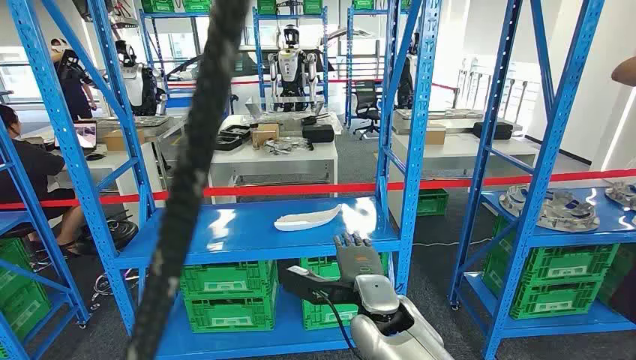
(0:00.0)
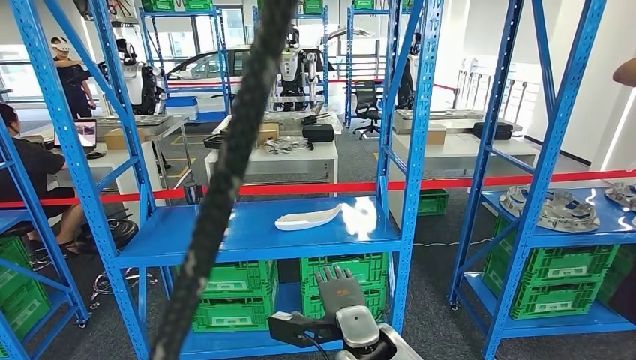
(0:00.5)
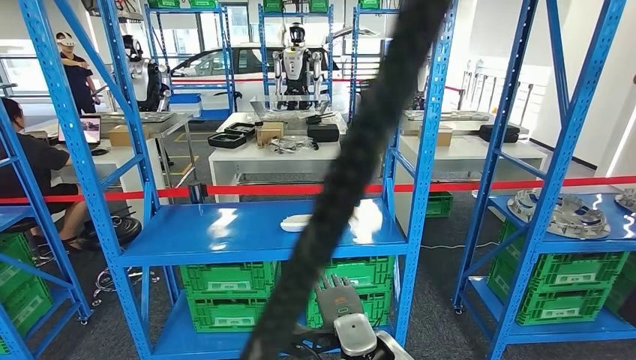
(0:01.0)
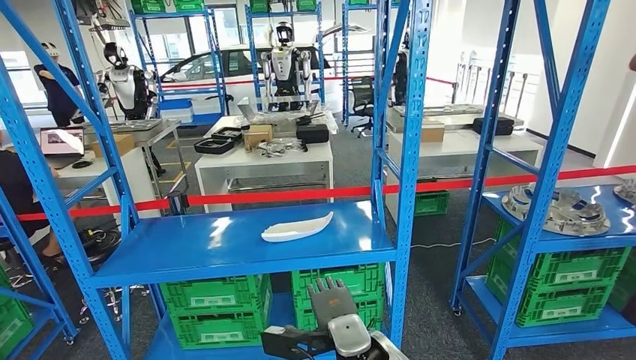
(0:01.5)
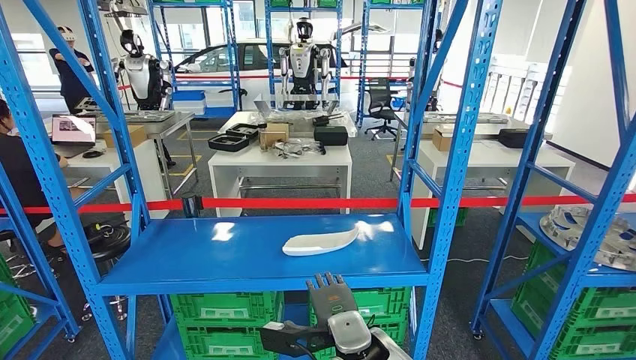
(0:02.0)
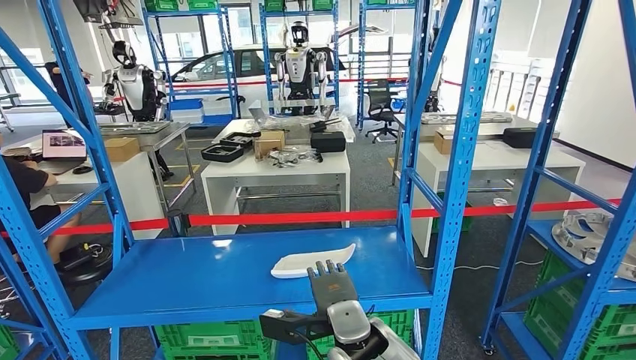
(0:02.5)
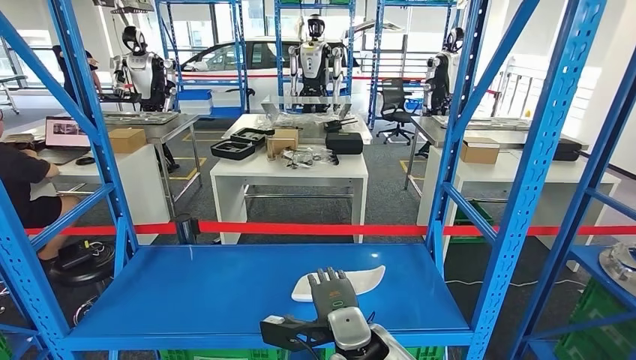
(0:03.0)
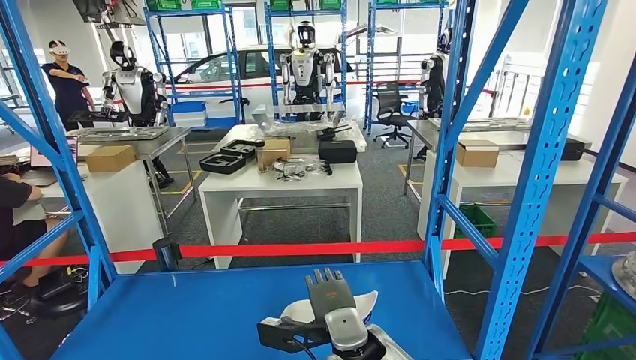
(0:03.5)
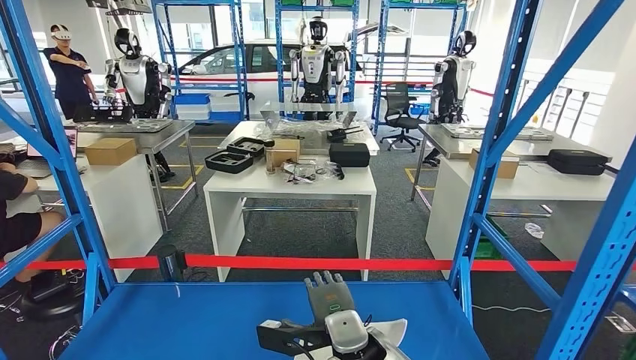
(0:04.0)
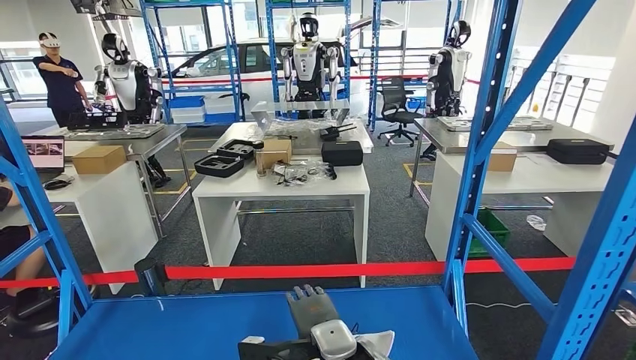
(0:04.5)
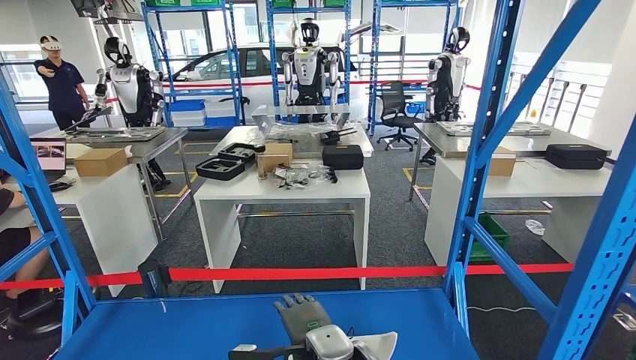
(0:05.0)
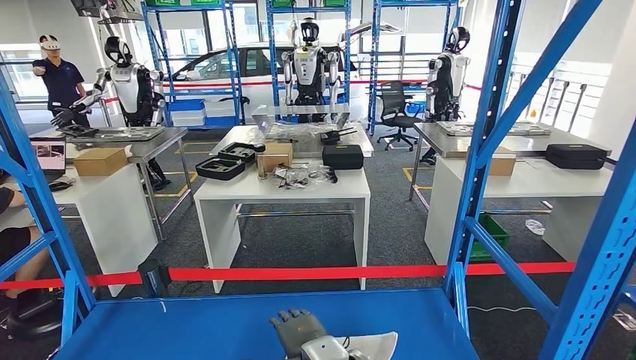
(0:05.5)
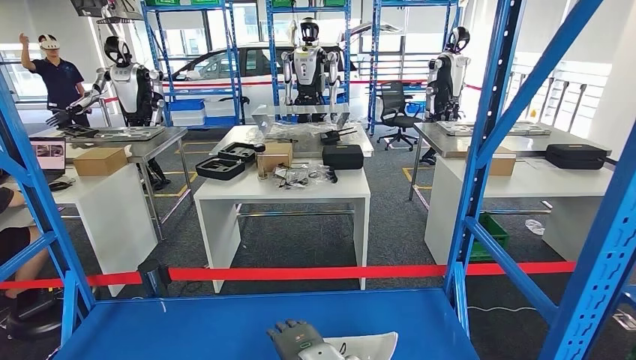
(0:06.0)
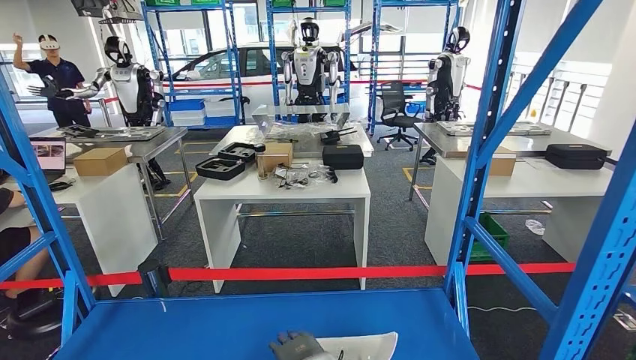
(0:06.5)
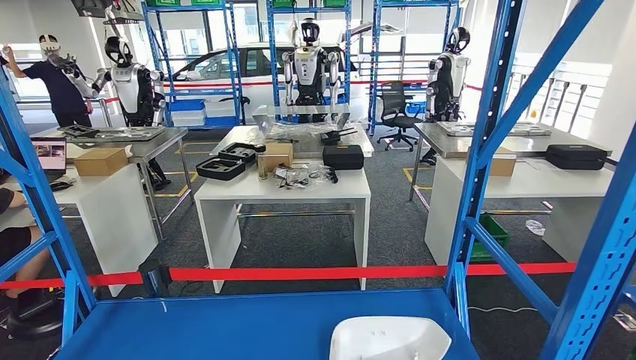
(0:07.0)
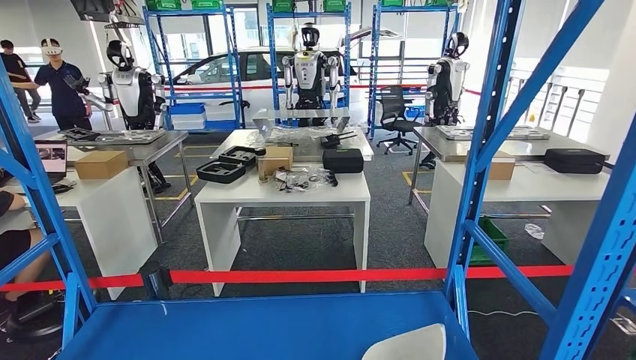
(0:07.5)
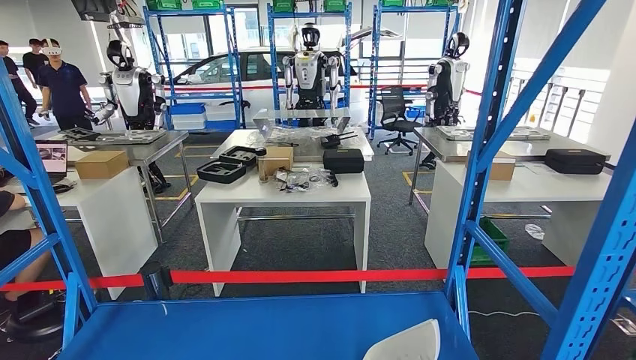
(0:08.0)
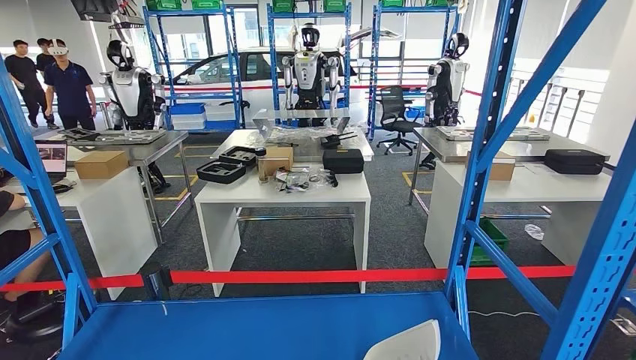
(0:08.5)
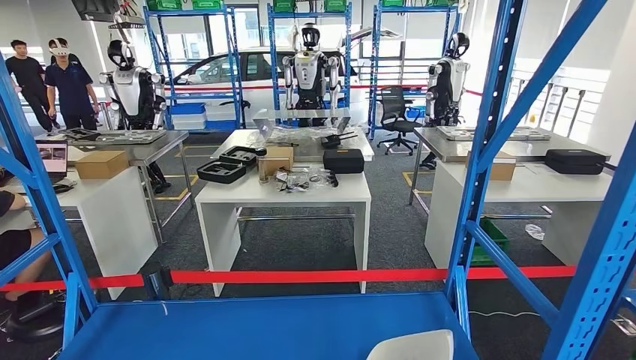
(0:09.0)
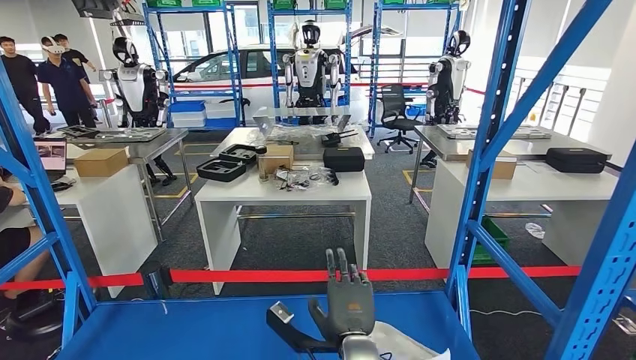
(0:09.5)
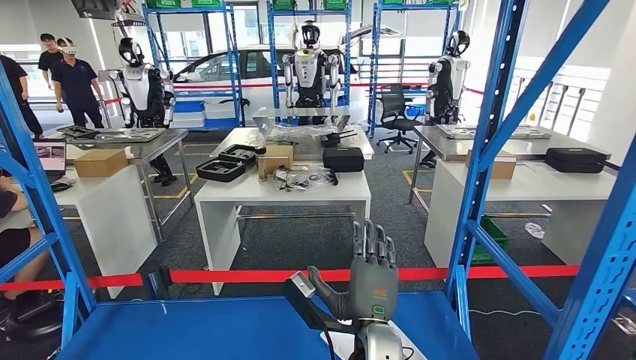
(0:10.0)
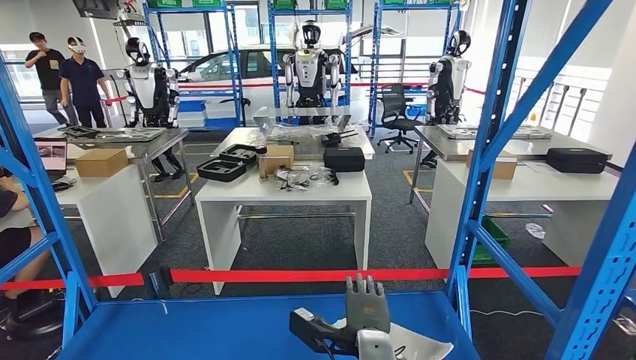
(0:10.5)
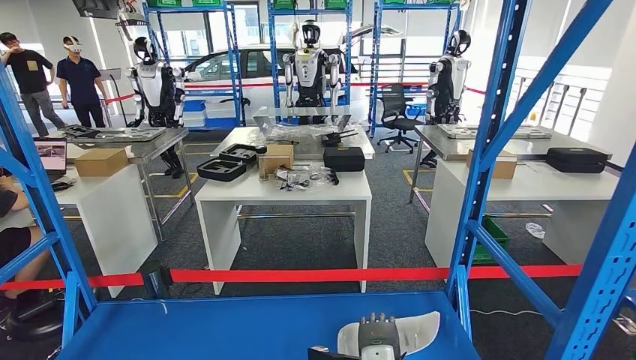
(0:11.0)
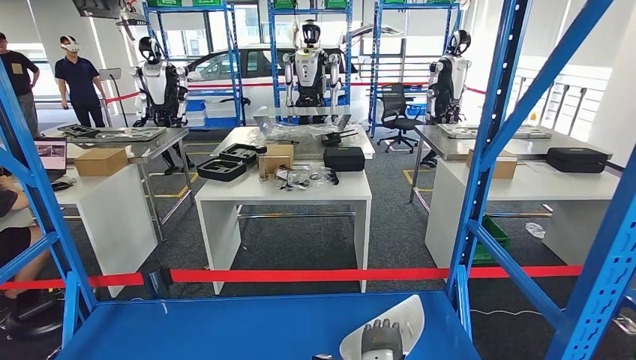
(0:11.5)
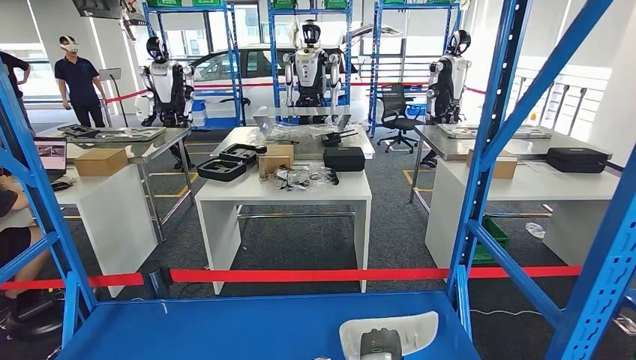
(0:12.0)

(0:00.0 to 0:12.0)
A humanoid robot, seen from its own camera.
0:10.0 - 0:12.0: The right hand goes roughly 10 cm downward and to the right.

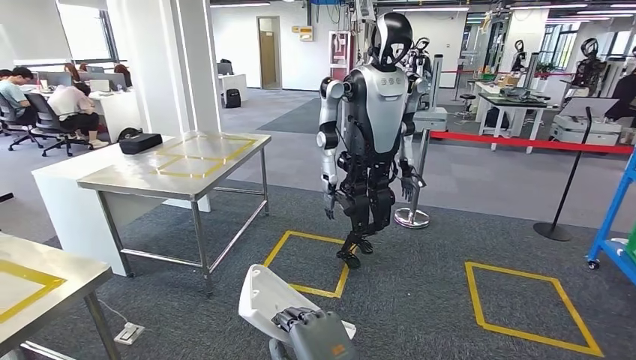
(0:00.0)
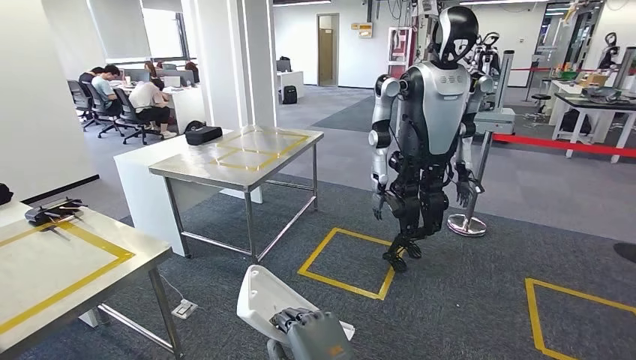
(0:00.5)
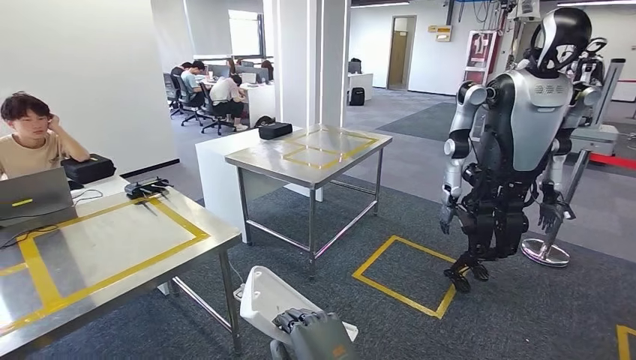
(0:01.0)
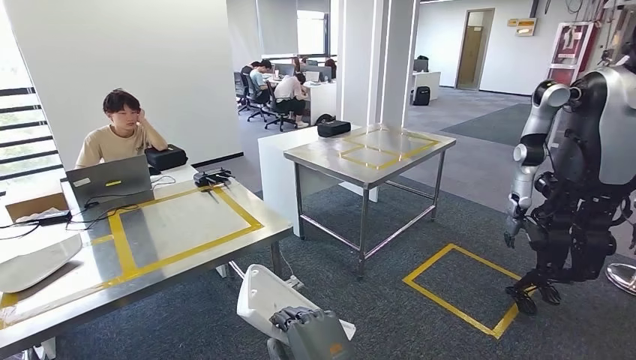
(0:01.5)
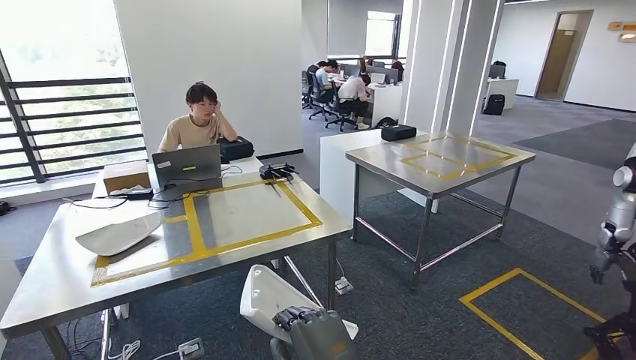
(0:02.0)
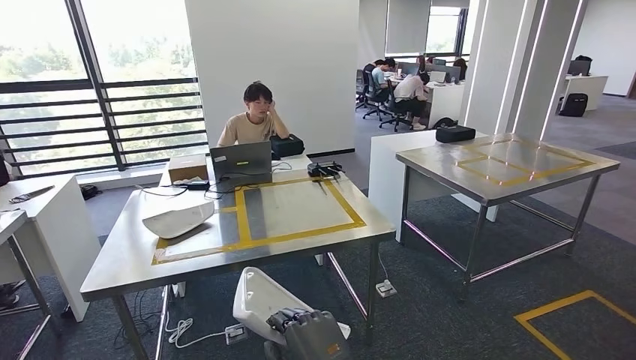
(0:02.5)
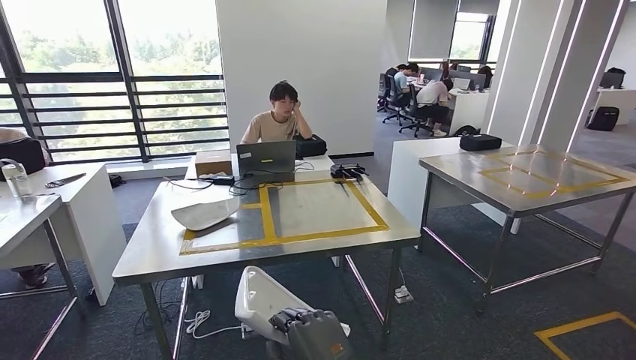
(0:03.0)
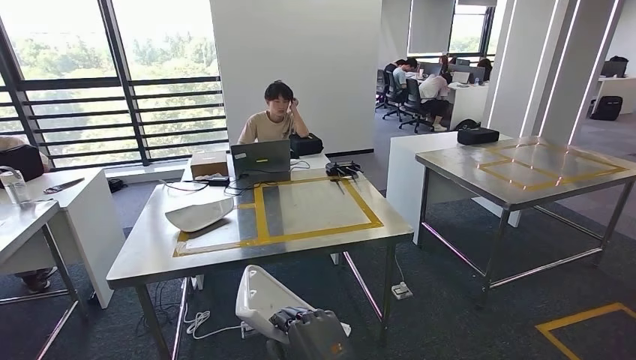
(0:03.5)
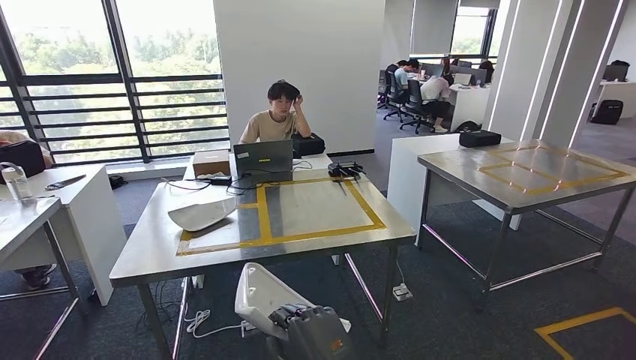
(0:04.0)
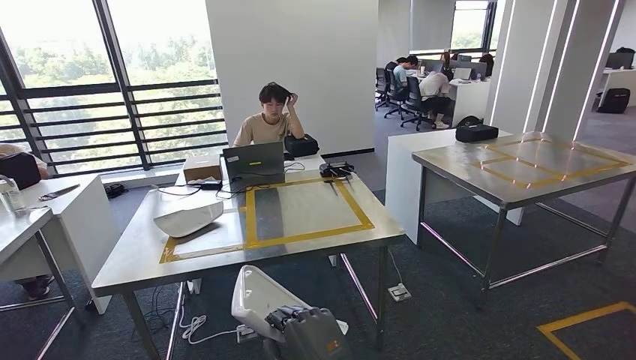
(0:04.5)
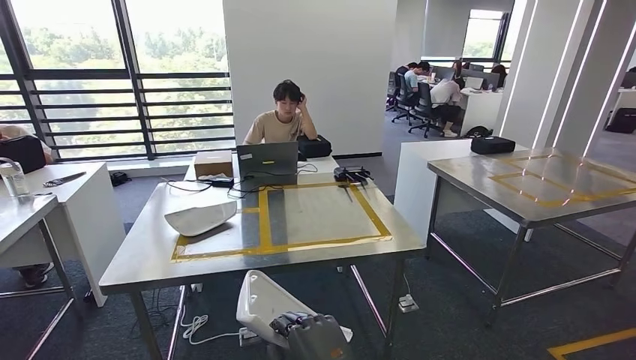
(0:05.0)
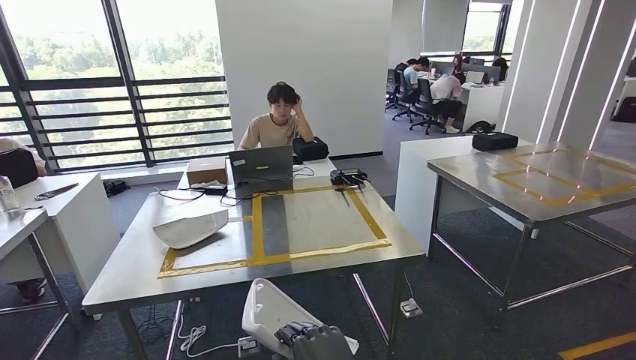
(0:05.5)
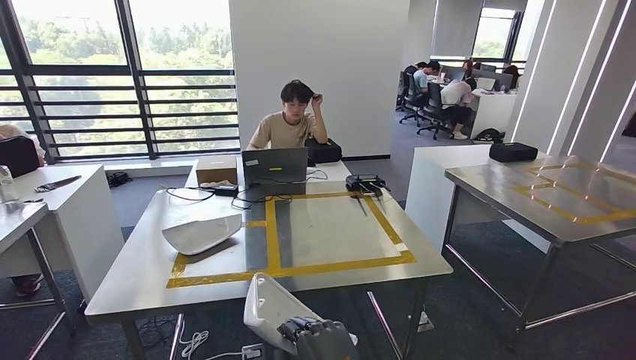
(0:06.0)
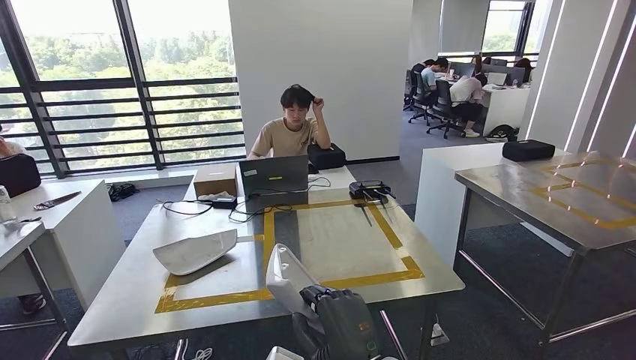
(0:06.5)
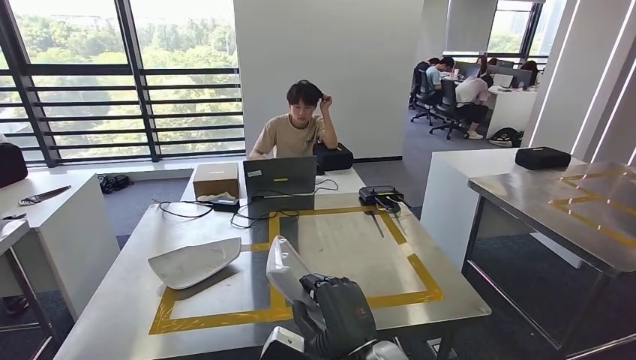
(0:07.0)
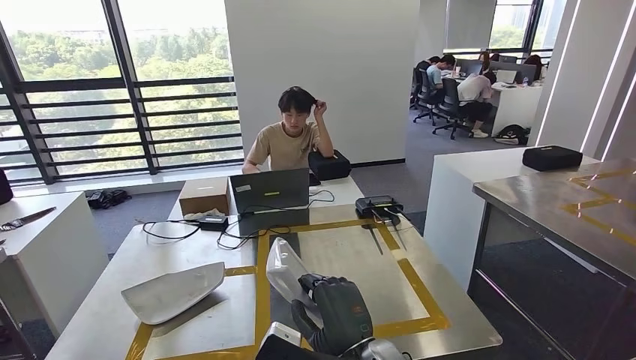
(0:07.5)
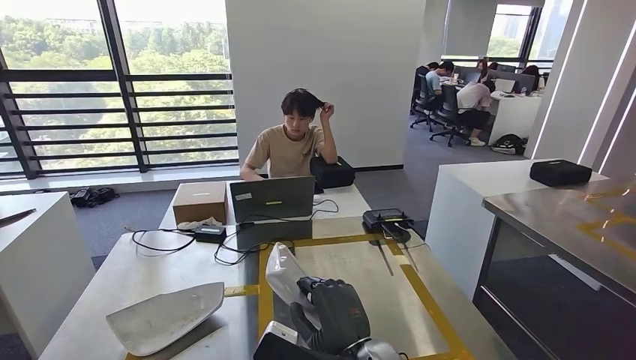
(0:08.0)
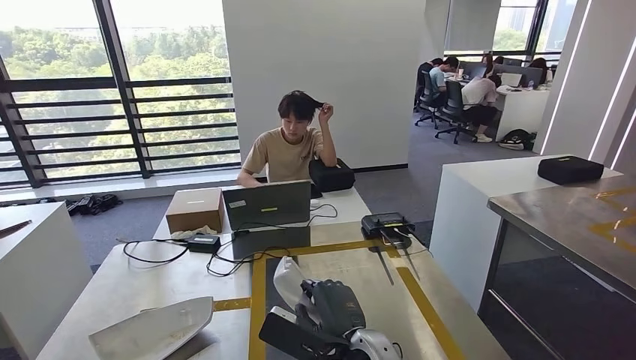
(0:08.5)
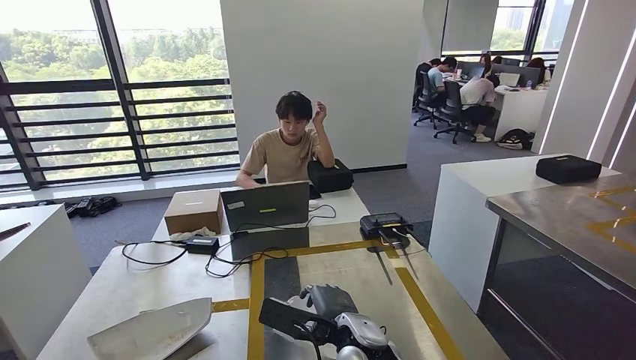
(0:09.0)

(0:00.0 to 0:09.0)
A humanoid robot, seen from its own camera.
Step, 0:00.0 - 0:02.5: Move the small component to the workbench.
